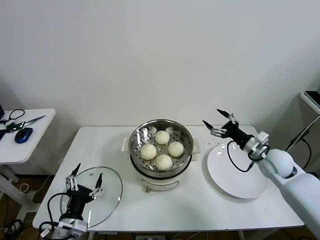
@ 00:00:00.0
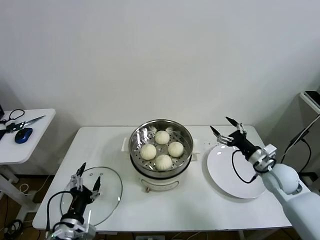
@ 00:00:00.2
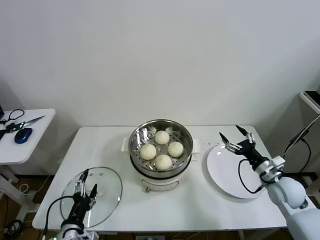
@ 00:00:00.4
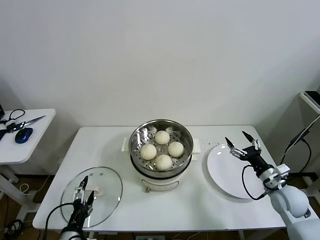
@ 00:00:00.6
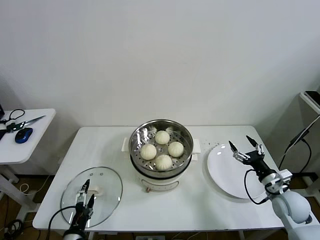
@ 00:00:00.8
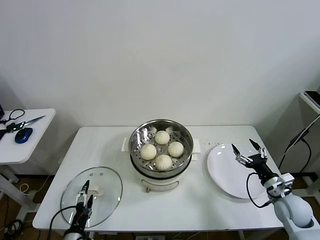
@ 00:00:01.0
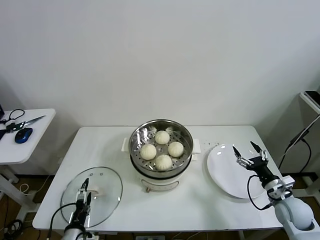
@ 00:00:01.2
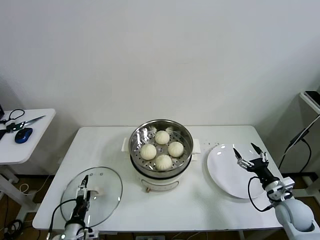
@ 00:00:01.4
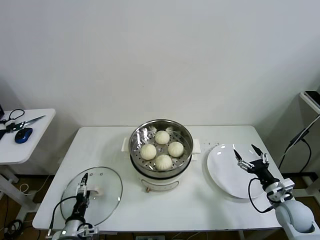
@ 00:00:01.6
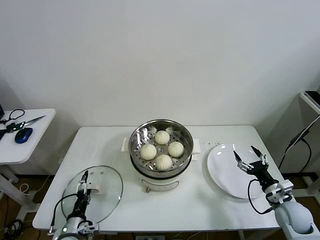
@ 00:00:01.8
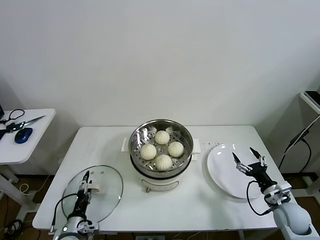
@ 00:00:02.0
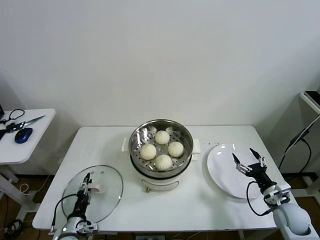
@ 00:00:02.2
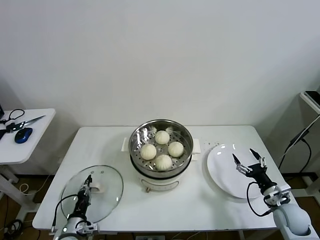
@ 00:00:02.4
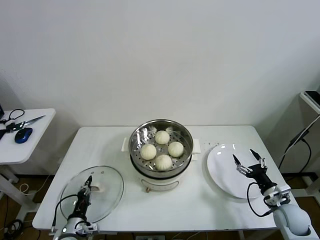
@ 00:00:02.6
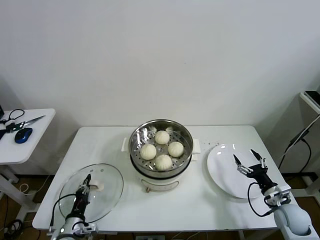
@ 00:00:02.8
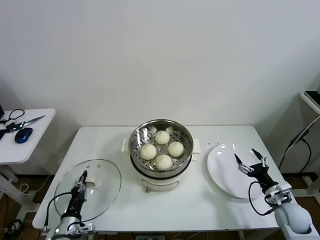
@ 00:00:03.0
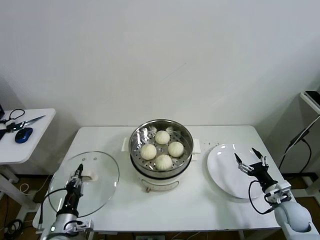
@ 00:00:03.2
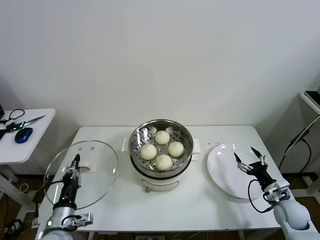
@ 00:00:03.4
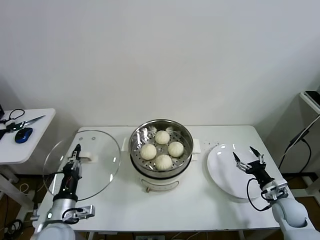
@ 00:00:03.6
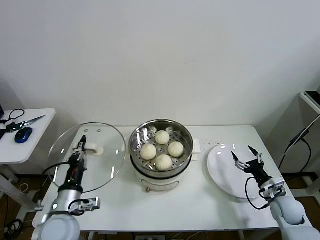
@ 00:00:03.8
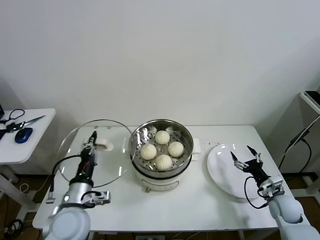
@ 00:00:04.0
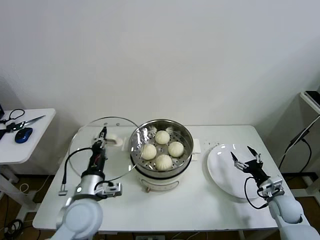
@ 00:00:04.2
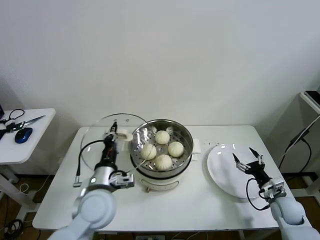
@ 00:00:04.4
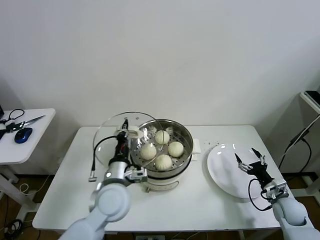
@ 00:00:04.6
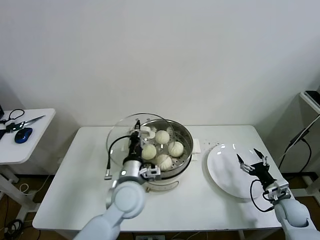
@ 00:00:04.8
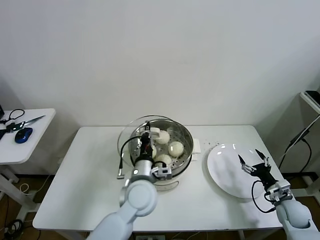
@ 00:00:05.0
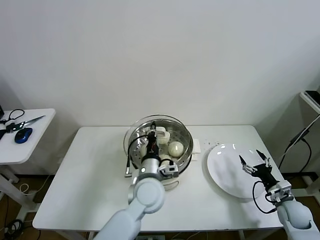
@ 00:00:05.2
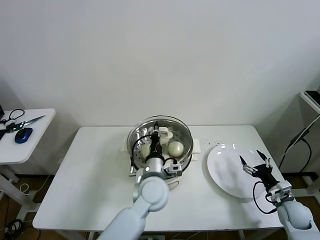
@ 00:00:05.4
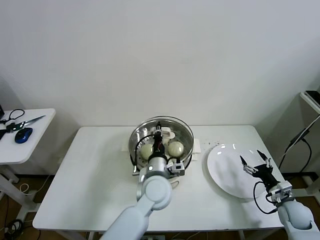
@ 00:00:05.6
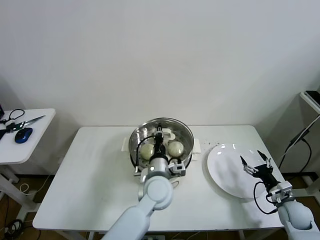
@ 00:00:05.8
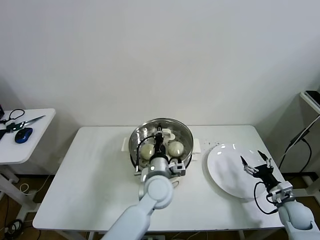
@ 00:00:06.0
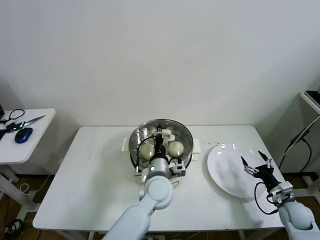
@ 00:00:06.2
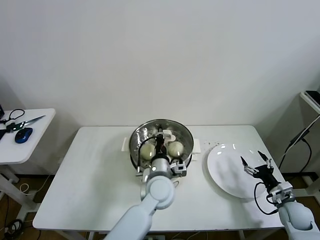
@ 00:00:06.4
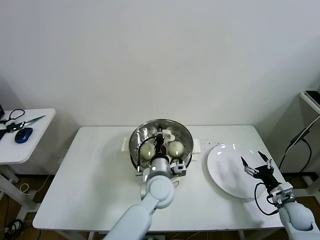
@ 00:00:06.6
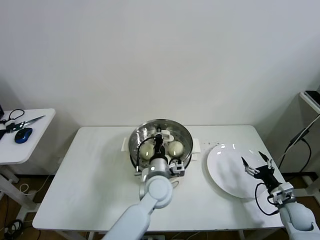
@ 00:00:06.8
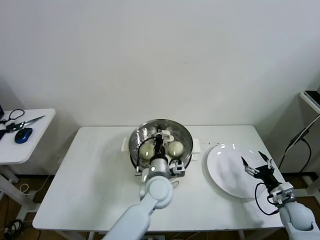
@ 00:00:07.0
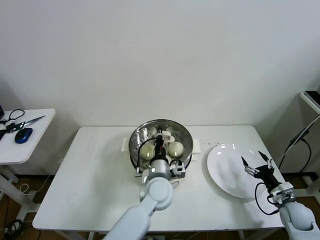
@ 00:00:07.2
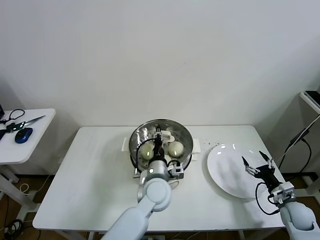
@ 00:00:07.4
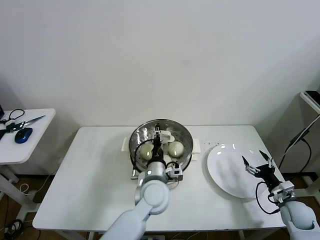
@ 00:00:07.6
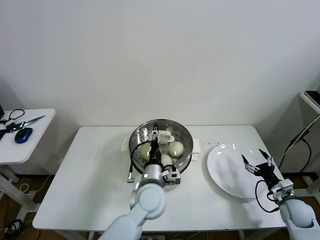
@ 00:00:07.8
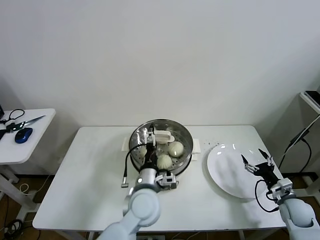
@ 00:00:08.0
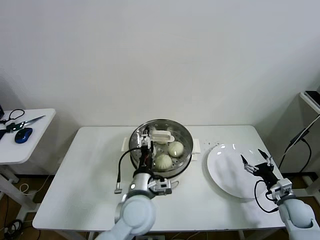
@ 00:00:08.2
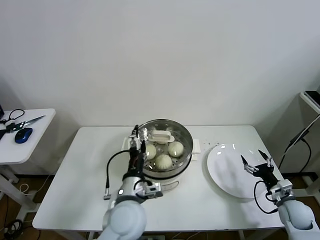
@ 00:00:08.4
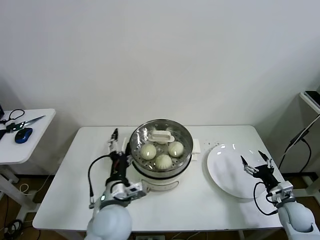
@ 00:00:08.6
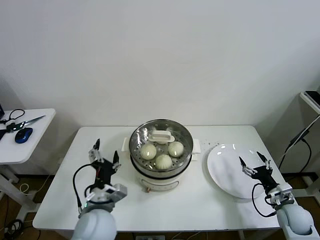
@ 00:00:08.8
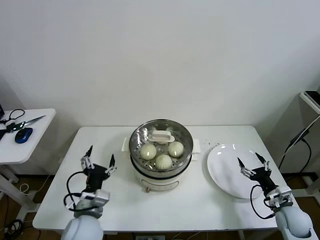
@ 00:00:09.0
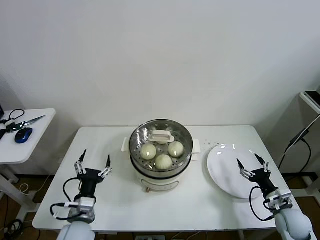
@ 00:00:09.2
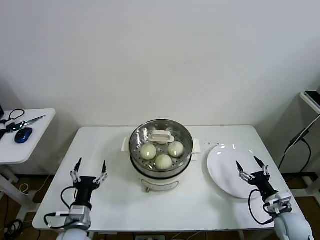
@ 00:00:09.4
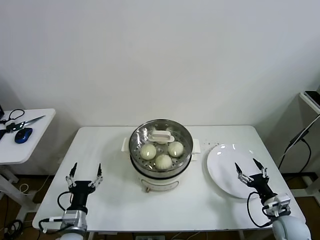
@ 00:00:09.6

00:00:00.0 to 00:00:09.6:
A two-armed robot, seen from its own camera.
Task of the whole recording: take steamed baozi put them in steamer then cover it.
Step, 00:00:00.0 to 00:00:02.4: Grasp the pot lid with left gripper.
Step, 00:00:02.6 to 00:00:07.8: Place the pot lid on the steamer with left gripper.
00:00:00.0 to 00:00:01.6: The left gripper travels downward by roughly 10 cm. Meanwhile the right gripper is displaced backward and downward by about 15 cm.
00:00:01.6 to 00:00:03.2: The left gripper moves upward, some 5 cm, and closes up.
00:00:03.2 to 00:00:04.8: The left gripper goes roughly 30 cm to the right, upward and forward.
00:00:04.8 to 00:00:06.4: The left gripper shifts approximately 10 cm to the right.
00:00:06.4 to 00:00:08.0: The left gripper moves roughly 5 cm, and opens its fingers.
00:00:08.0 to 00:00:09.6: The right gripper goes some 5 cm backward. Meanwhile the left gripper goes some 25 cm to the left, downward and backward.
